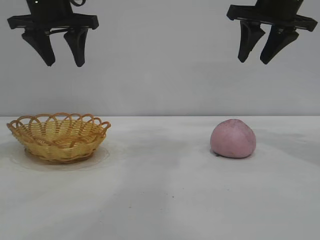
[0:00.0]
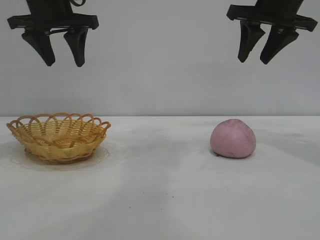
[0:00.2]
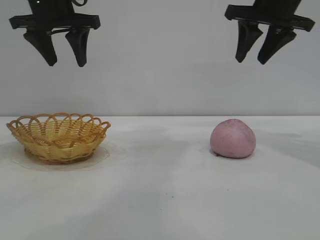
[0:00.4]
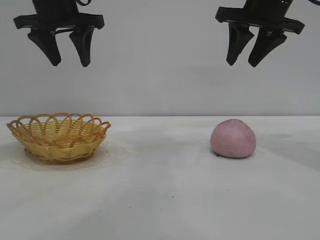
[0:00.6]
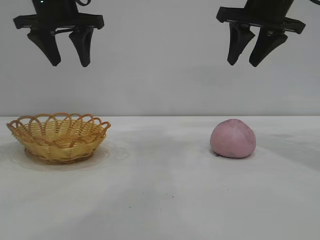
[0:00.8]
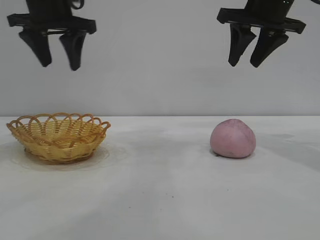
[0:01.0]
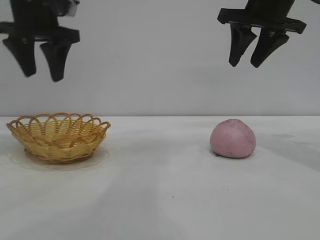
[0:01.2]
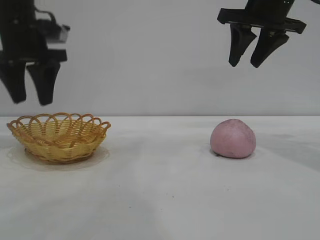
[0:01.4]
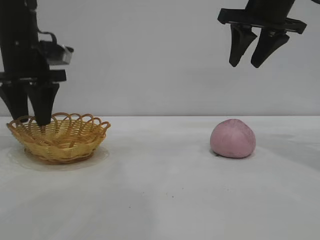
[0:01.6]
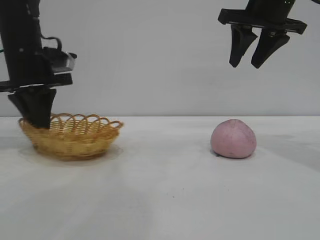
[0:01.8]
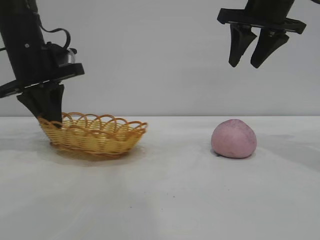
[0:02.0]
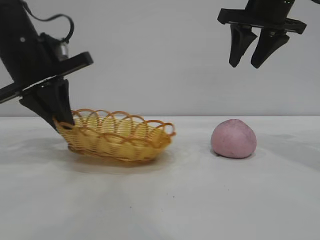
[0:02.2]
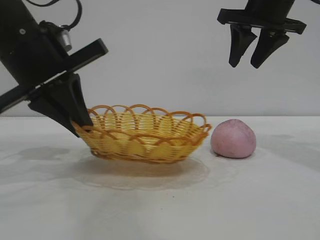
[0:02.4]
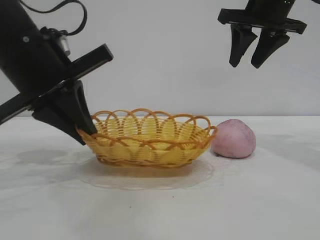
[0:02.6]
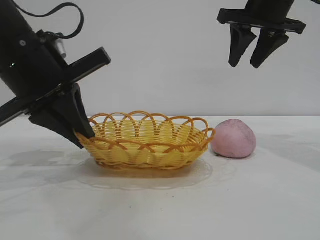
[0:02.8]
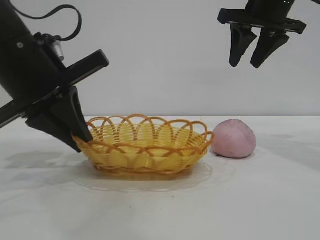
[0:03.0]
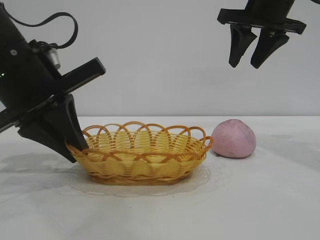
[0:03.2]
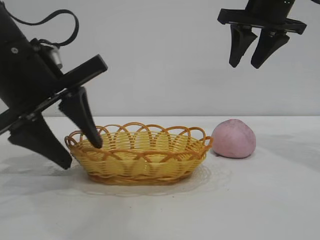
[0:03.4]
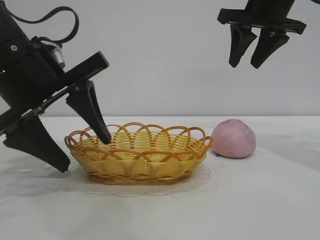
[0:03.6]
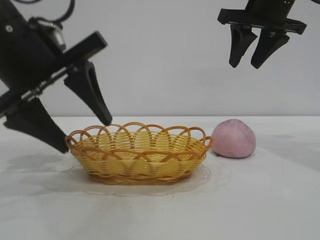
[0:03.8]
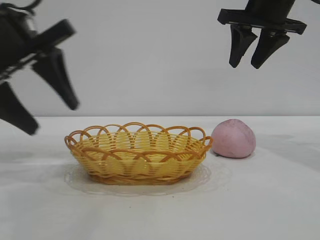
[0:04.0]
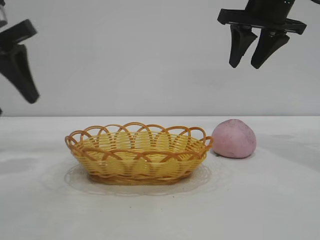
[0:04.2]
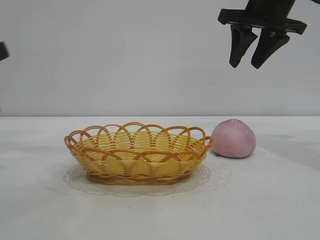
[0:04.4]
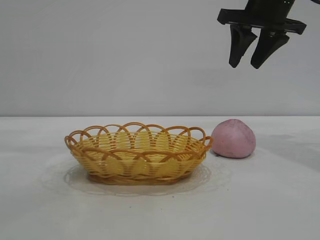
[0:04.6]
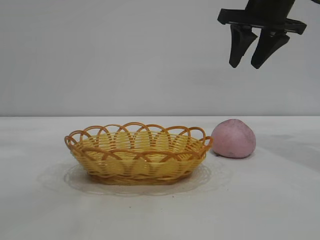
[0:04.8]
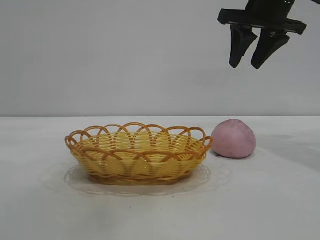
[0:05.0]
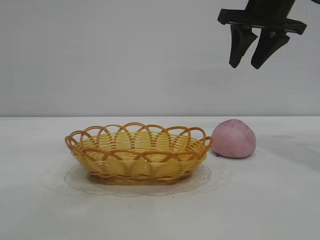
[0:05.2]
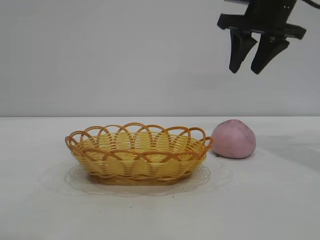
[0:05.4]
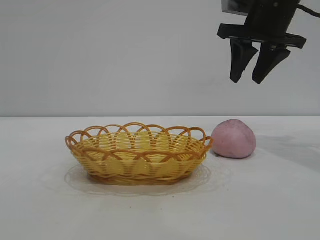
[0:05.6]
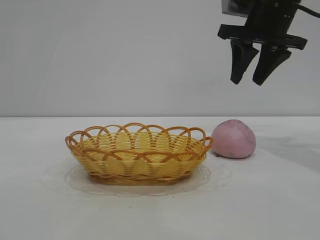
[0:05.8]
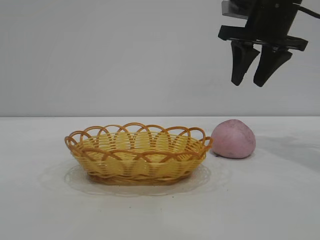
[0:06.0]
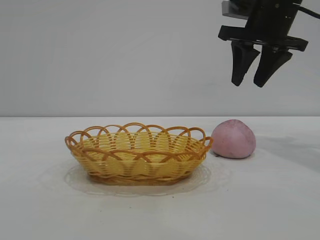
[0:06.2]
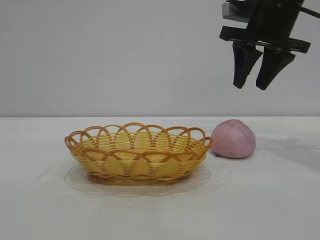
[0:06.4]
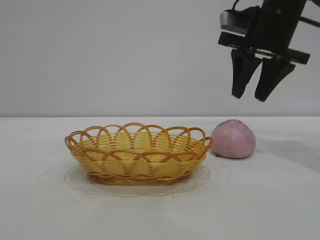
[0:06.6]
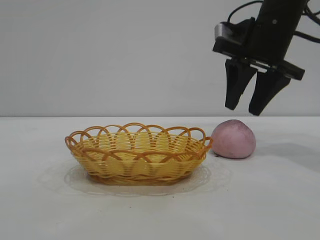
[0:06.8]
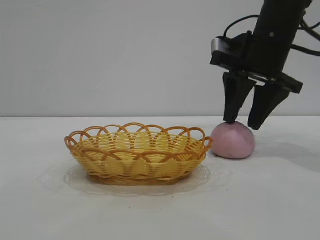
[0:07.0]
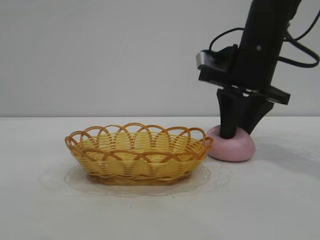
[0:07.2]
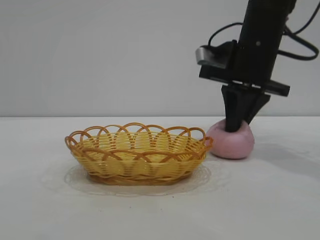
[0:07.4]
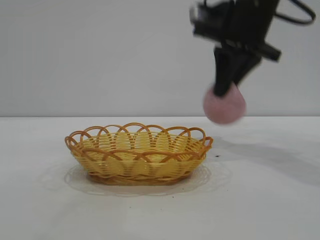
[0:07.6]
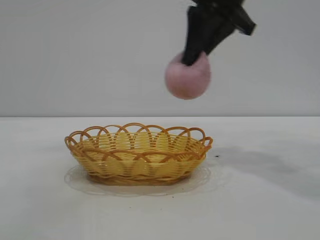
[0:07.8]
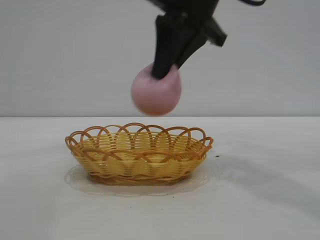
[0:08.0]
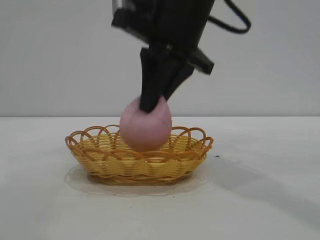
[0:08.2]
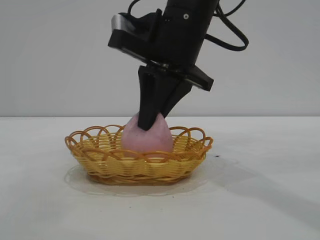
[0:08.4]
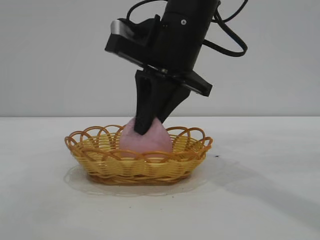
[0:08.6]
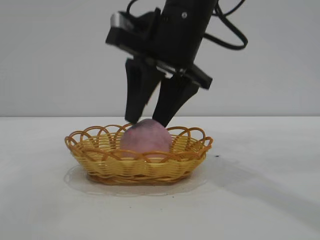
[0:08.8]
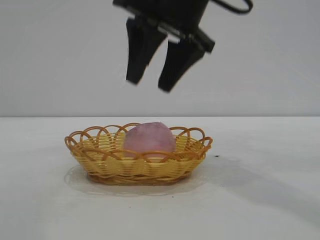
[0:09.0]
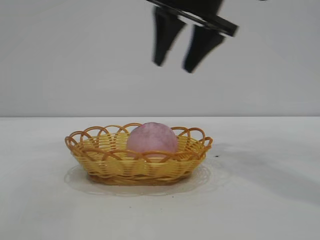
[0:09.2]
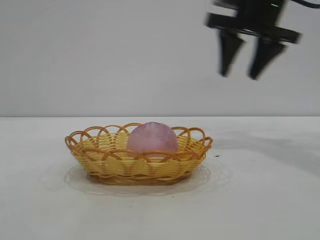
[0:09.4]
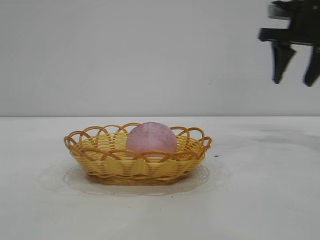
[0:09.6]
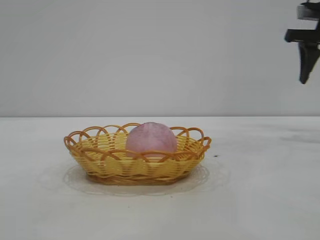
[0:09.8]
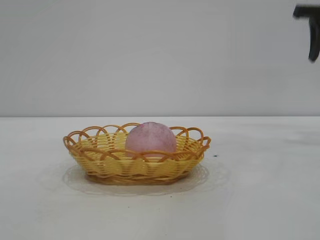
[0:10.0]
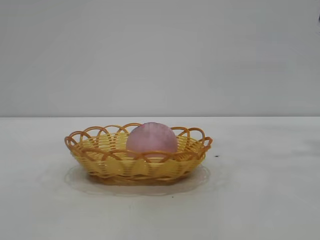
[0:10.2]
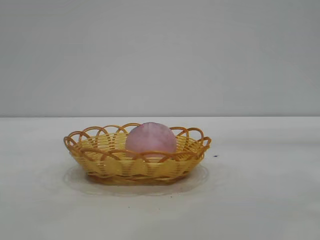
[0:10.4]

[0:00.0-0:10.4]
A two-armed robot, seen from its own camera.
Task of the whole recording: pick up the peach and put it into the basket.
Step, 0:00.0 to 0:03.8: Move the basket to the center of view.
Step, 0:04.0 to 0:07.4: Pick up the peach.
Step, 0:07.8 to 0:09.0: place the peach into the basket.
